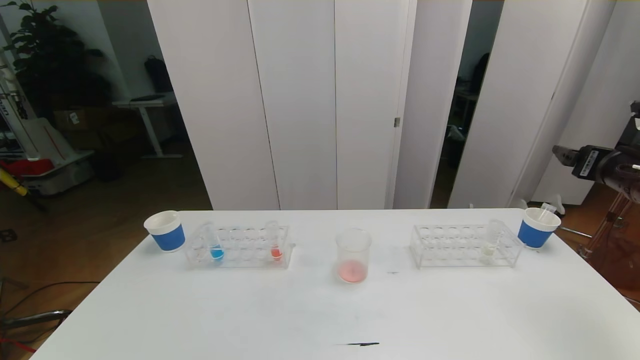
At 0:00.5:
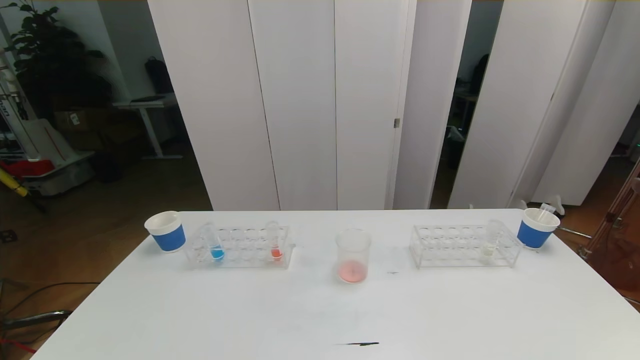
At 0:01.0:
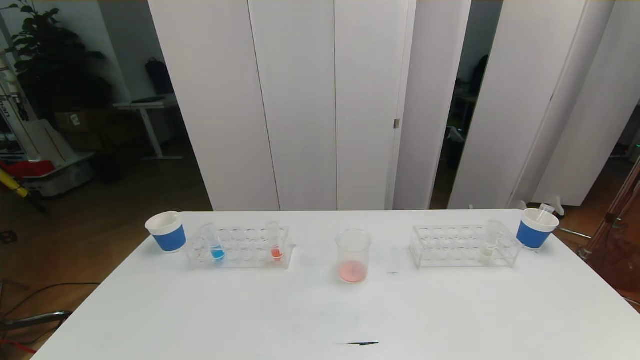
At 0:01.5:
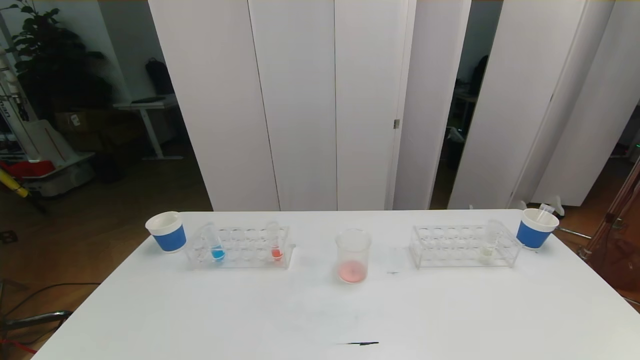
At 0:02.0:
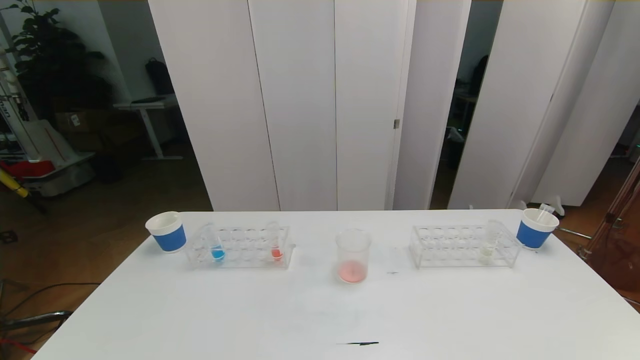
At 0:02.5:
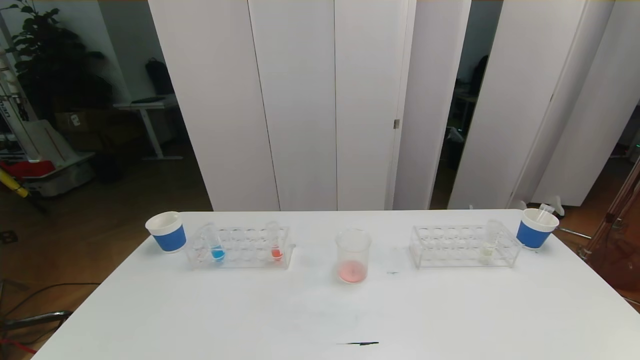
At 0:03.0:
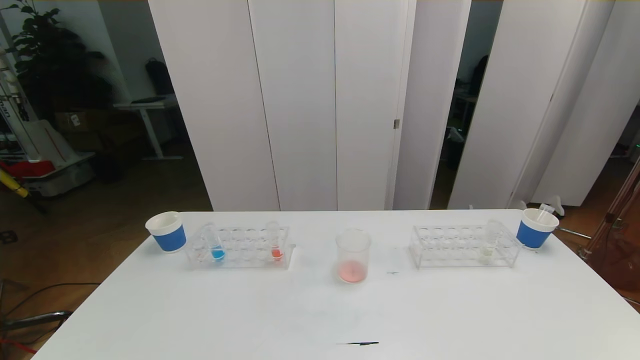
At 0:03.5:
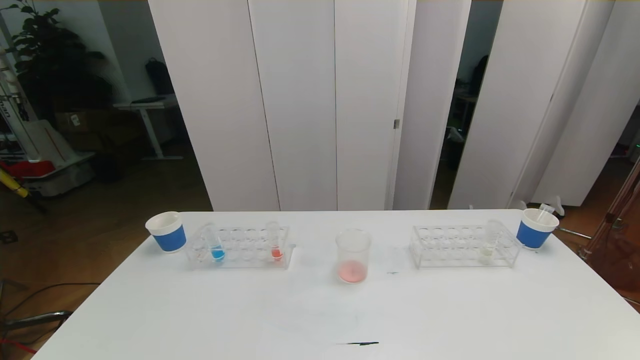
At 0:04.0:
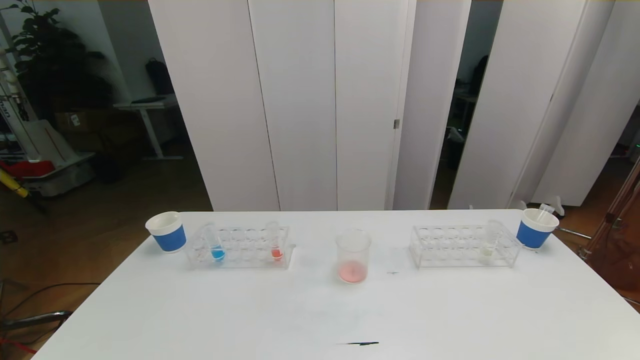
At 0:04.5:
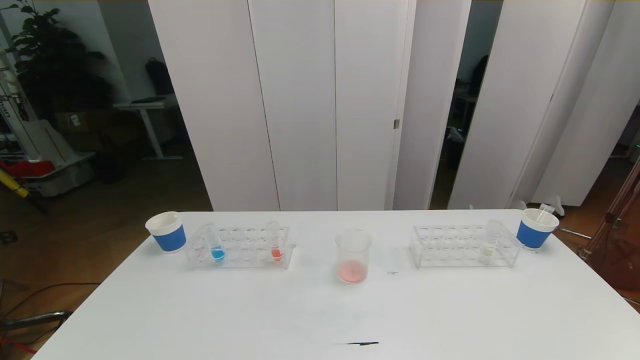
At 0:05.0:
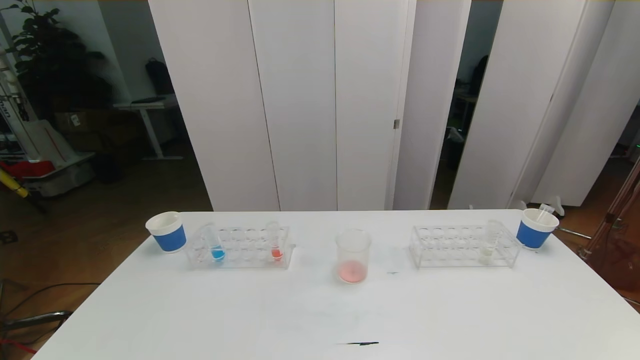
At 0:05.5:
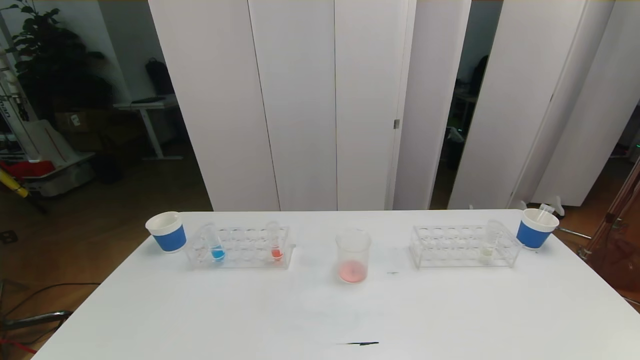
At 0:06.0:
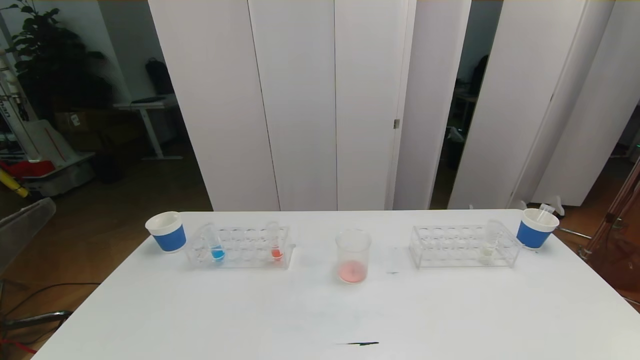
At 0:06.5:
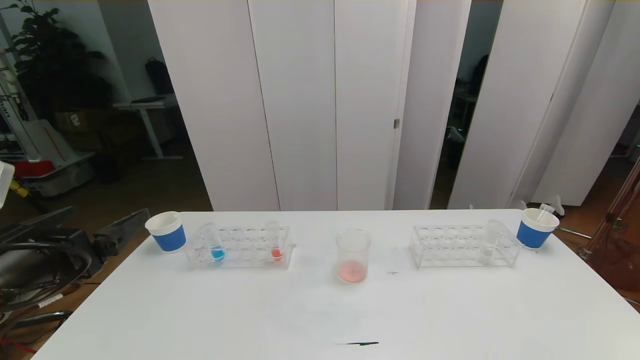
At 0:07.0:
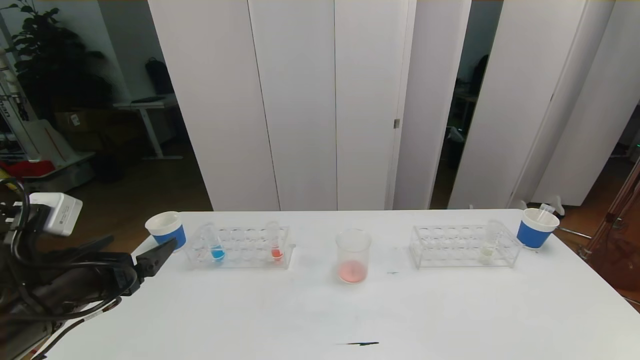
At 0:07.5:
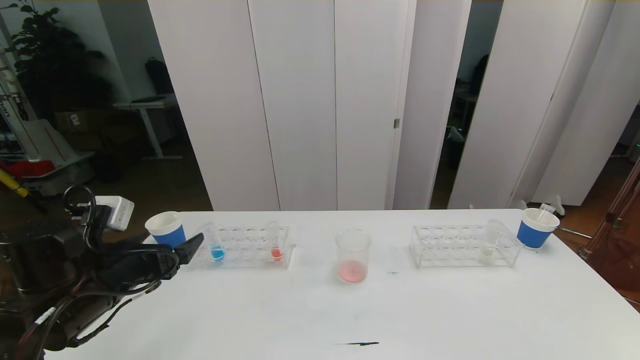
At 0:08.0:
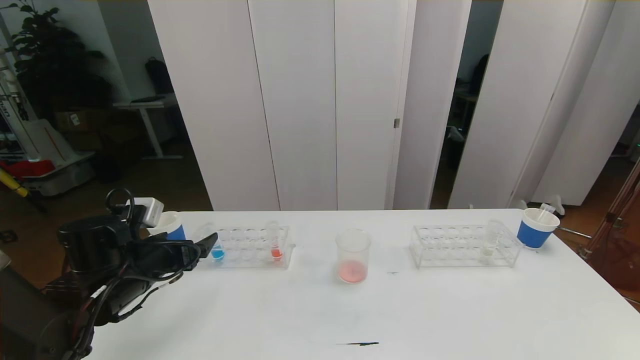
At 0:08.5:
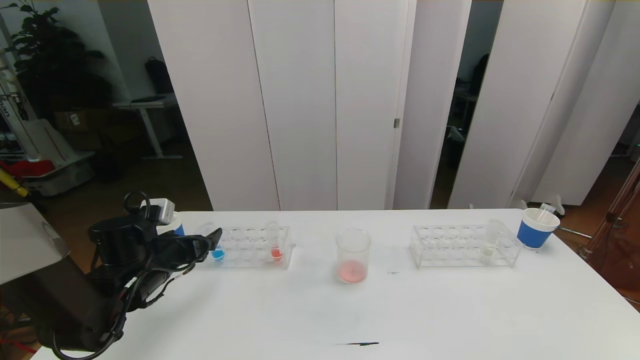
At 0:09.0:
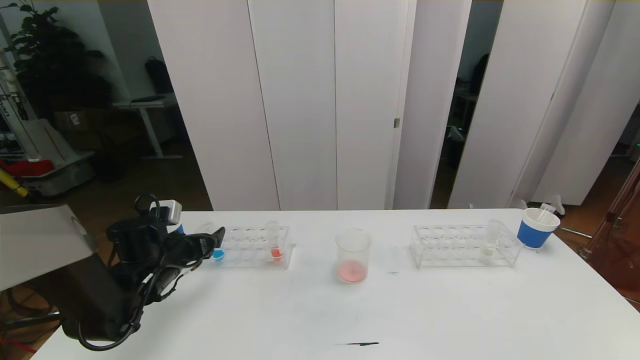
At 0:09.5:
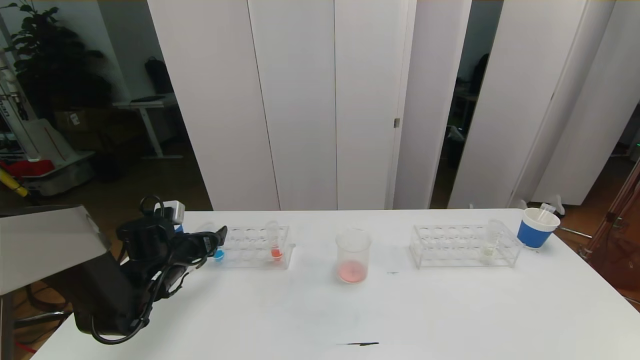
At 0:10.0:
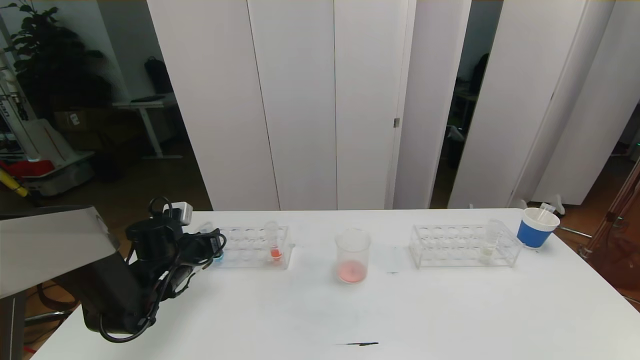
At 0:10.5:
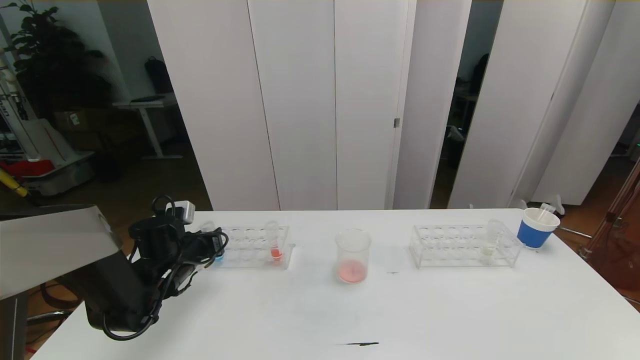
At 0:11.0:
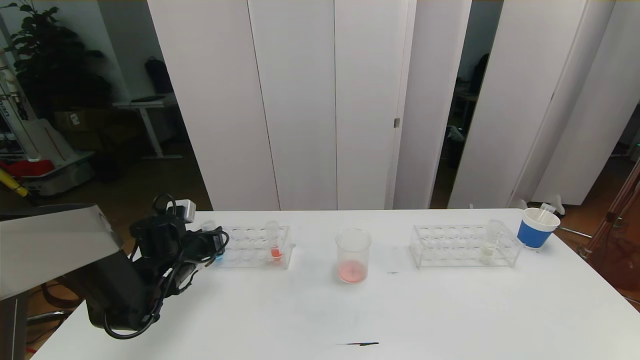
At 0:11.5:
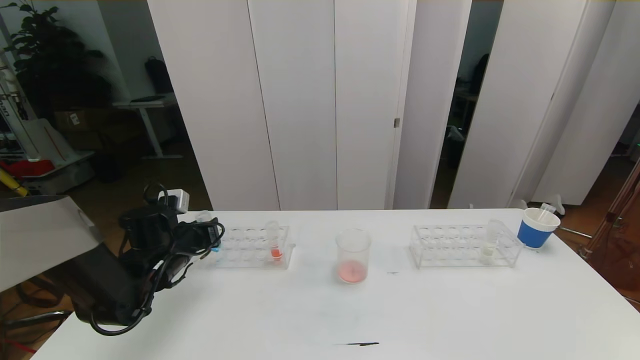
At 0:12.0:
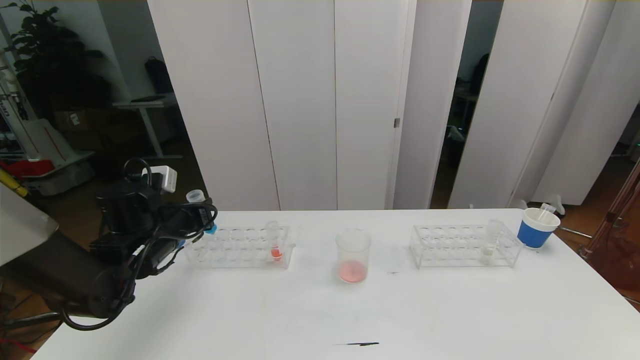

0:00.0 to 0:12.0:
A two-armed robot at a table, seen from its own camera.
Task of the whole recording: pick up the test tube with red pigment the test tube with blue pigment and the test tube with white pigment by grippers and pour them into the beaker.
Step, 0:00.0 to 0:04.0: Pour the red reagent into the graduated cylinder and place the test tube into the paper cup.
0:00.0 to 0:02.0: The right gripper is displaced backward and downward by roughly 35 cm.
0:02.0 to 0:04.0: Both grippers stay about where they are.
0:06.0 to 0:08.0: The left gripper is displaced forward and downward by about 25 cm.
0:08.0 to 0:10.0: The left gripper shifts some 10 cm forward and downward, and closes up.
0:10.0 to 0:12.0: The left gripper is displaced upward by approximately 10 cm.

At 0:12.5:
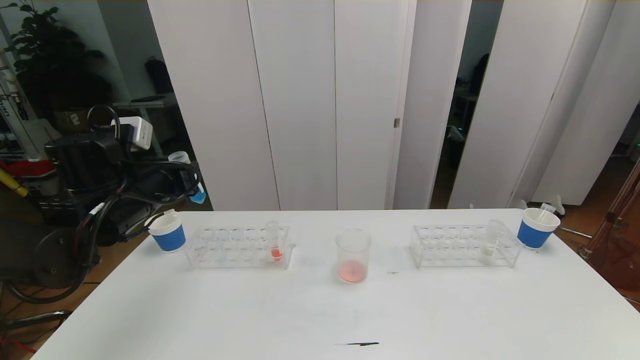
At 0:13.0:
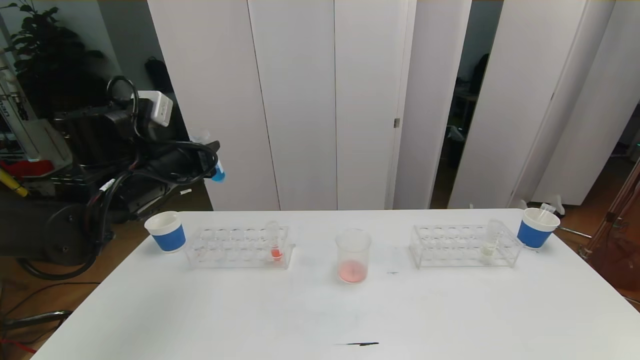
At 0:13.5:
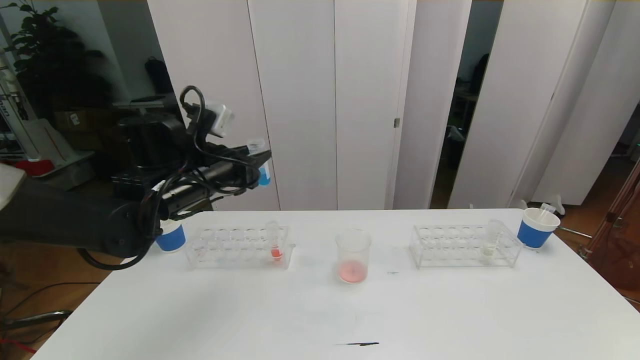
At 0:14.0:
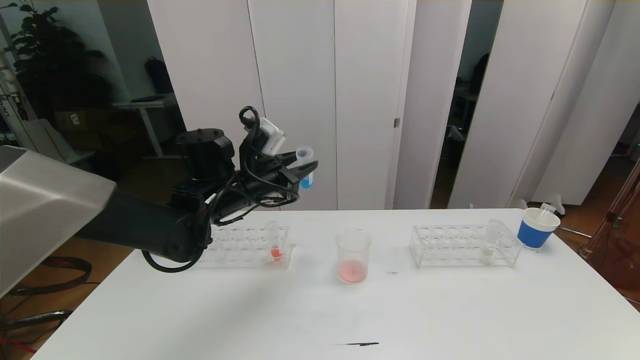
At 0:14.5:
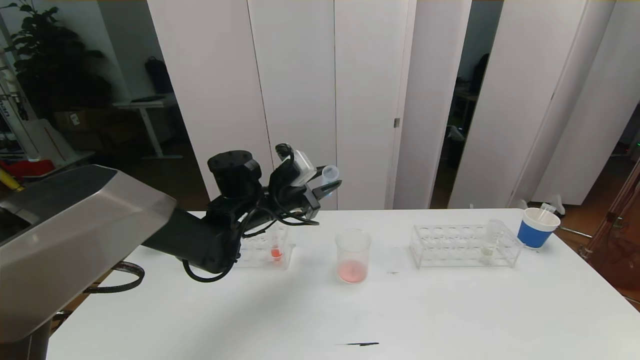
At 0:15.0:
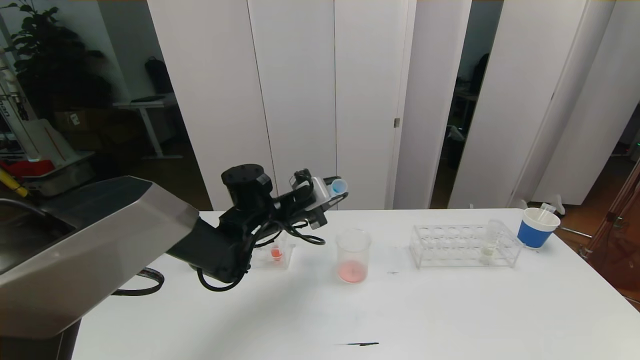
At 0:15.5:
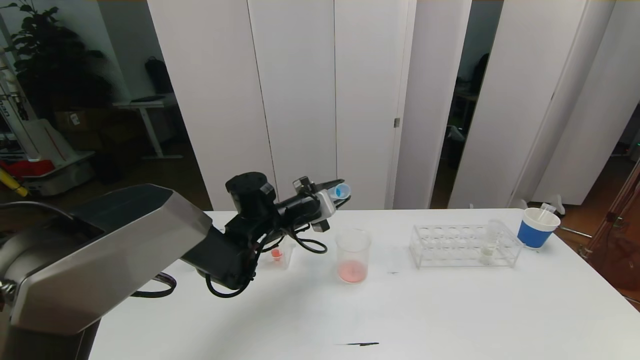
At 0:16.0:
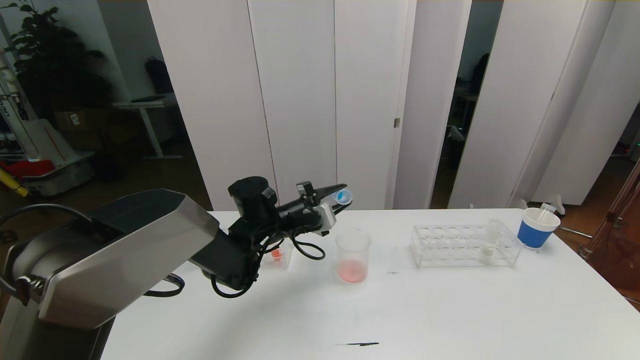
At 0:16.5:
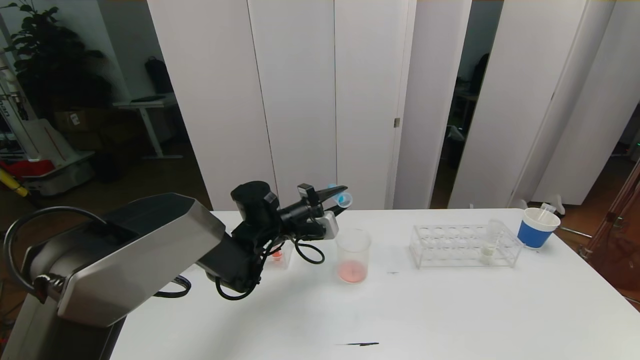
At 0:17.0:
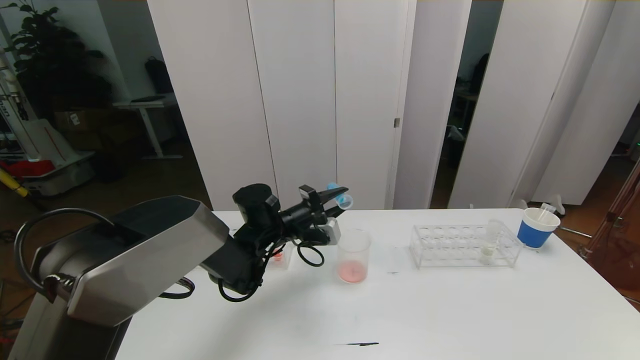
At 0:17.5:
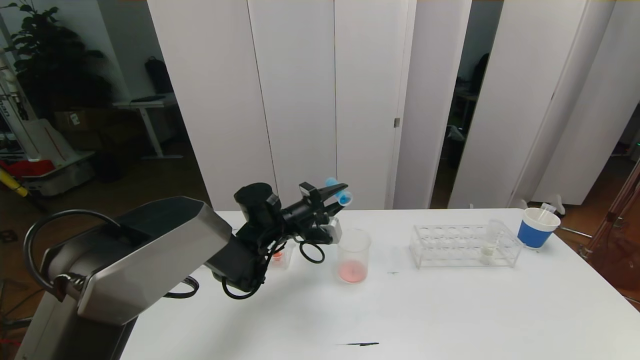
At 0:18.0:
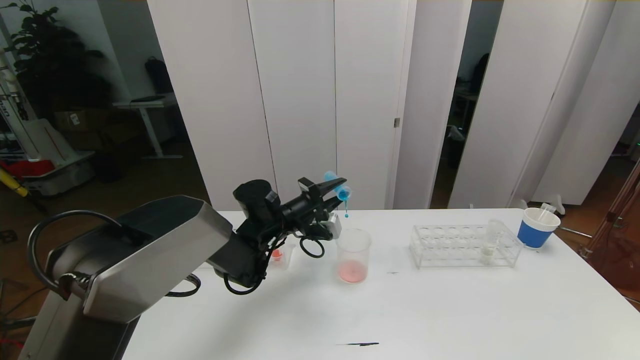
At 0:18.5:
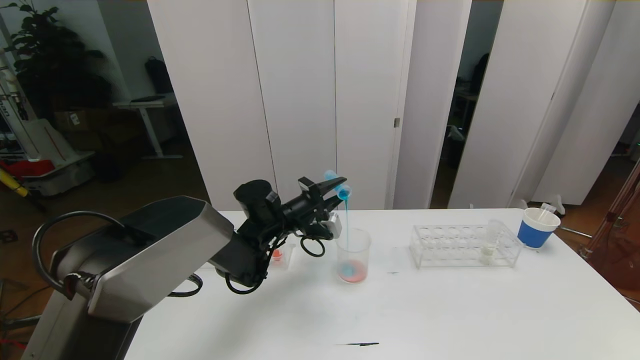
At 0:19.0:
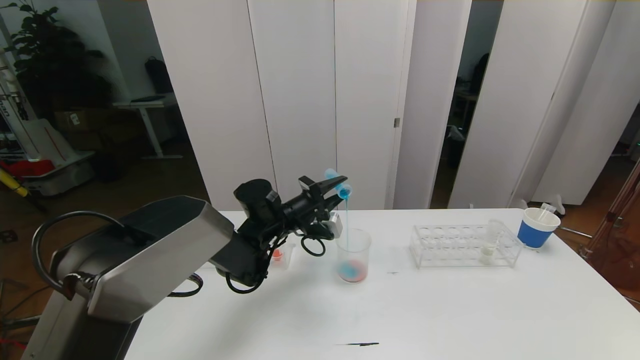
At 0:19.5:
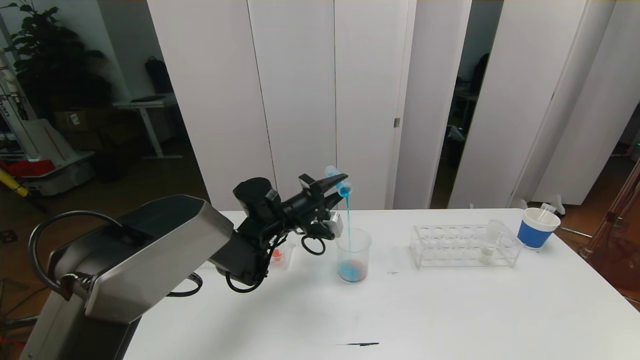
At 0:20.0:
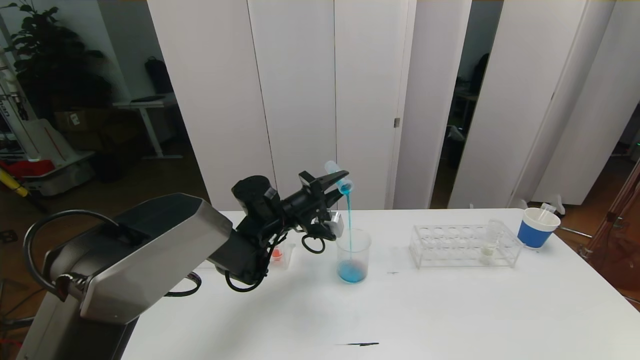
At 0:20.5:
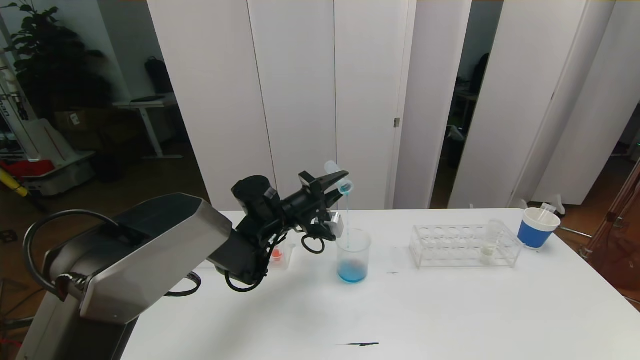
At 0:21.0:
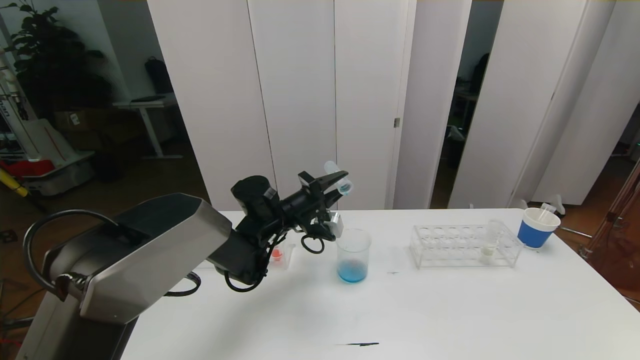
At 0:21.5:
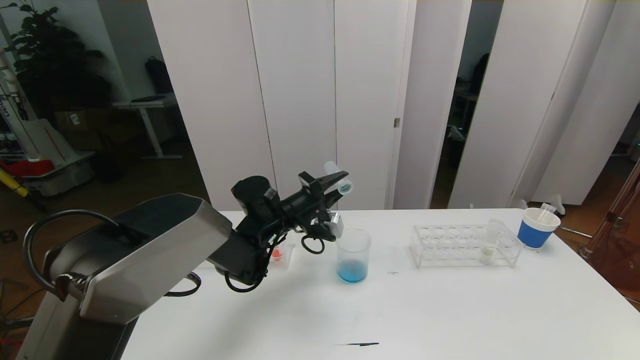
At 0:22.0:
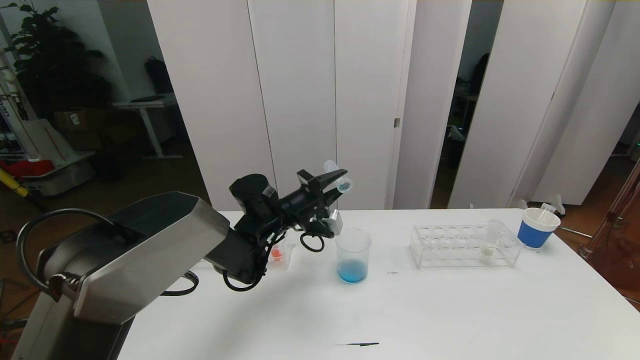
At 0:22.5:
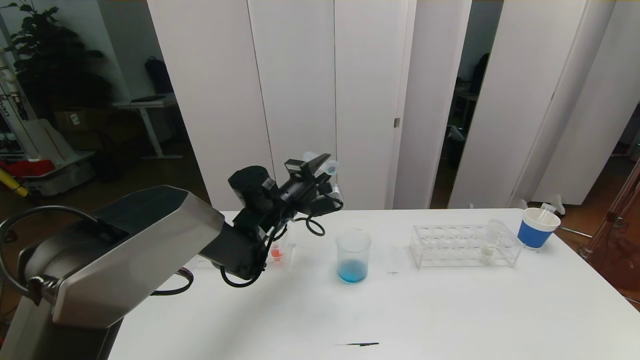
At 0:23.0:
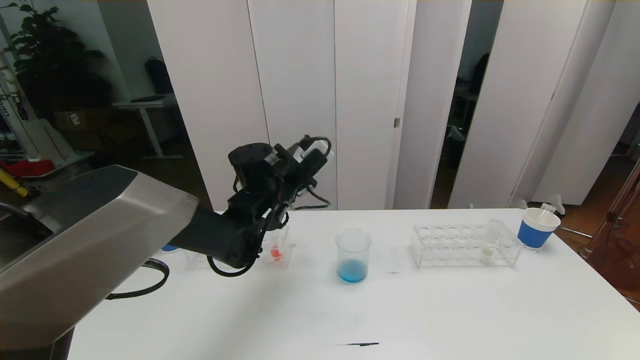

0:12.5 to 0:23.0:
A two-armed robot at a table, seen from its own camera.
Task of the whole recording: pick up the test tube with red pigment the test tube with blue pigment and the test tube with white pigment by grippers and pour them into the beaker.
0:12.5 to 0:14.5: The left gripper heads to the right and forward, covering about 15 cm.
0:14.5 to 0:16.5: The left gripper goes about 5 cm downward.
0:16.5 to 0:19.0: The grippers make only small movements.
0:19.0 to 0:21.0: There are only small adjustments of the grippers.
0:21.0 to 0:23.0: The left gripper is displaced upward by roughly 5 cm.
